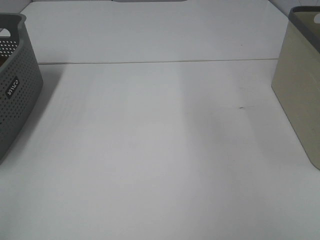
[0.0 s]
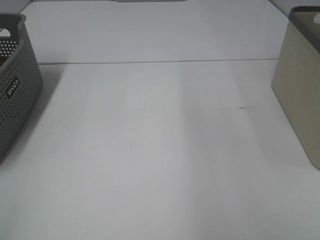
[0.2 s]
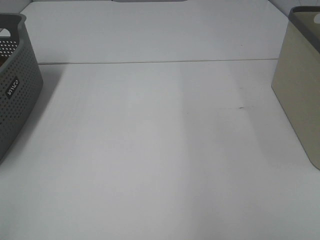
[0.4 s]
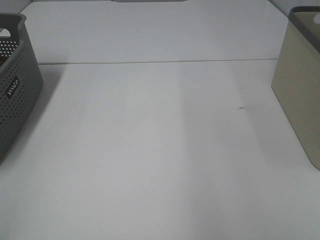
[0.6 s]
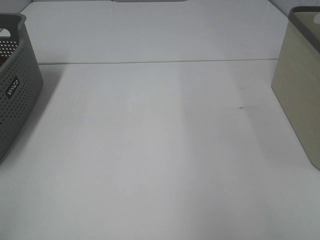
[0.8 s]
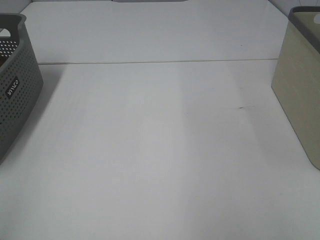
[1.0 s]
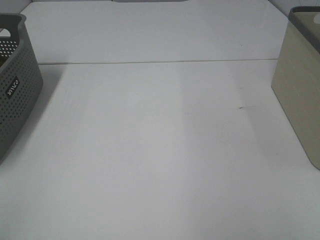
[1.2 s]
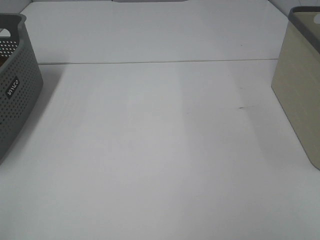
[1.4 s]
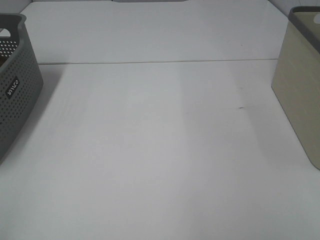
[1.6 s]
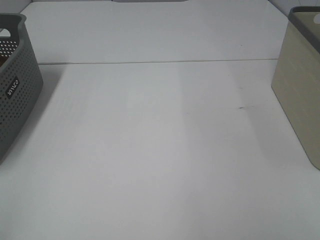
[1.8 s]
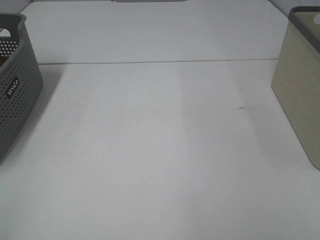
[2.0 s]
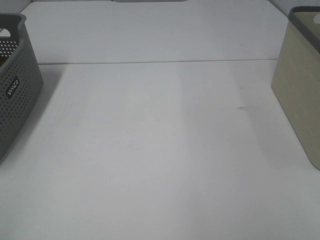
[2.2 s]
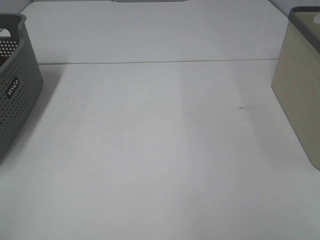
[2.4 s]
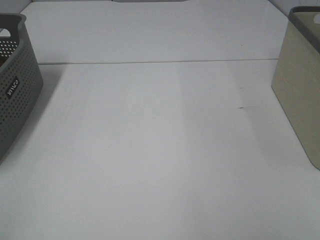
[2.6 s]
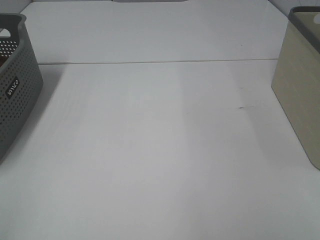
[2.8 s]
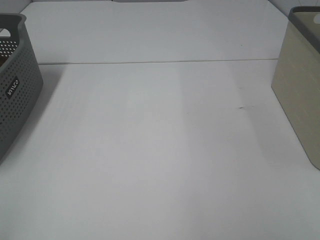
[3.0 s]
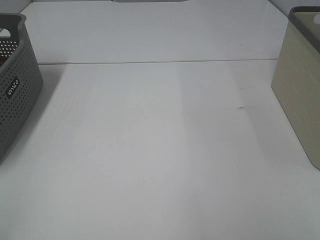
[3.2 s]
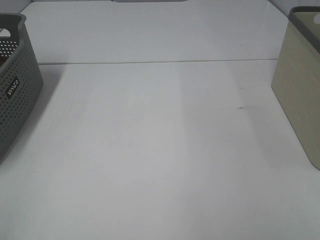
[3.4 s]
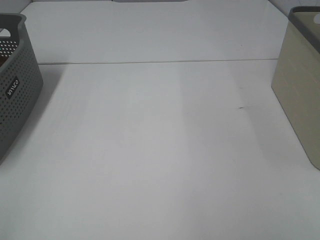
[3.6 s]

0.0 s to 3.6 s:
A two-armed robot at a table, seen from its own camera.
1.8 to 3.6 s: Both grippers stay put.

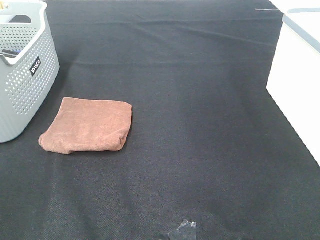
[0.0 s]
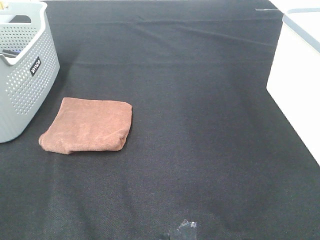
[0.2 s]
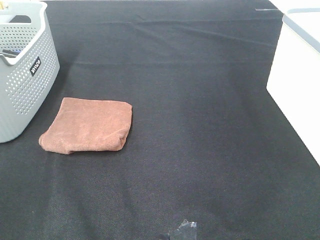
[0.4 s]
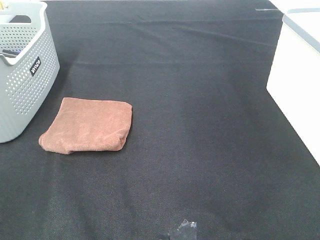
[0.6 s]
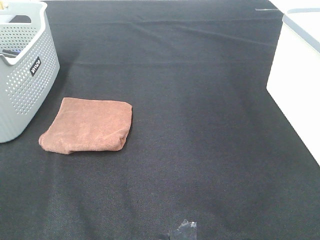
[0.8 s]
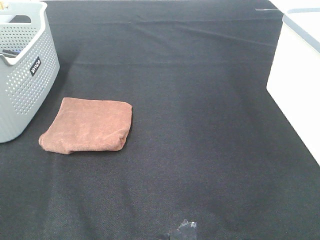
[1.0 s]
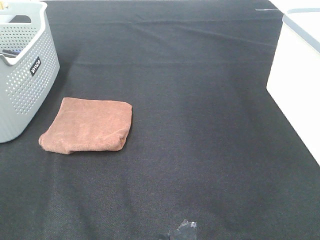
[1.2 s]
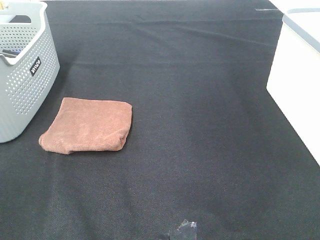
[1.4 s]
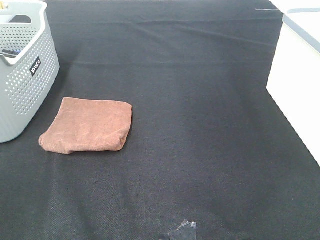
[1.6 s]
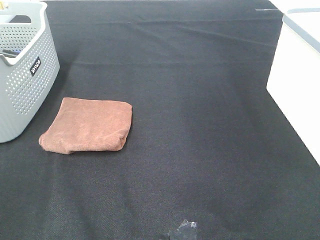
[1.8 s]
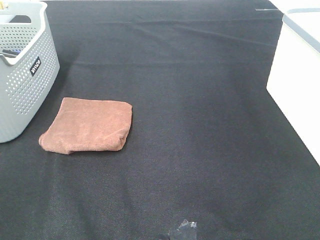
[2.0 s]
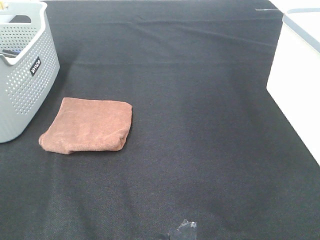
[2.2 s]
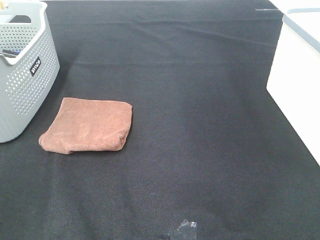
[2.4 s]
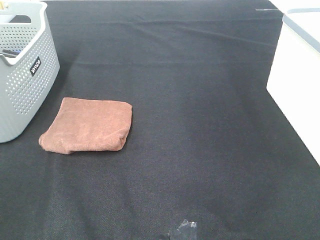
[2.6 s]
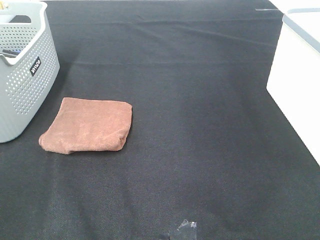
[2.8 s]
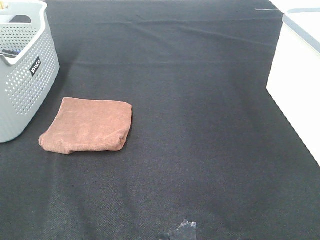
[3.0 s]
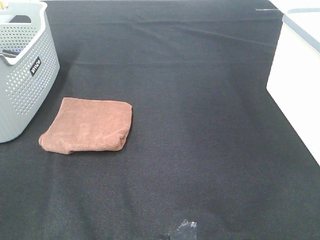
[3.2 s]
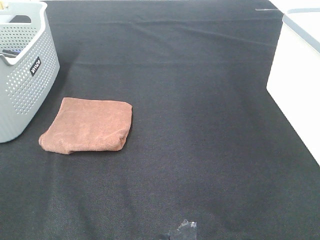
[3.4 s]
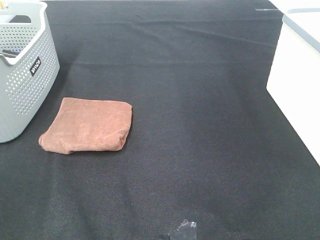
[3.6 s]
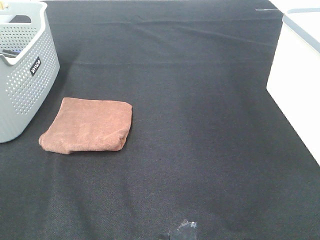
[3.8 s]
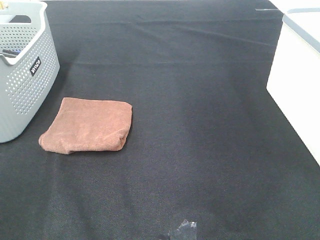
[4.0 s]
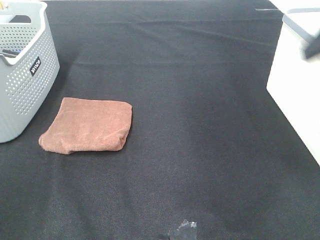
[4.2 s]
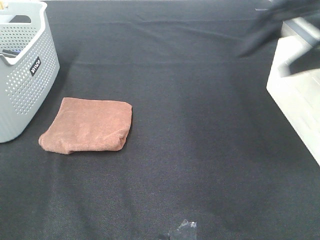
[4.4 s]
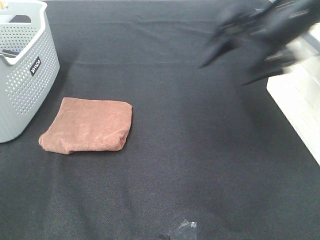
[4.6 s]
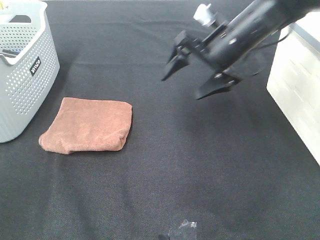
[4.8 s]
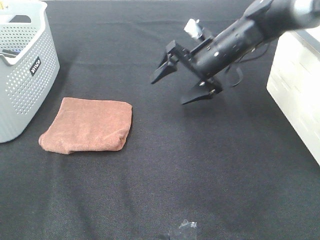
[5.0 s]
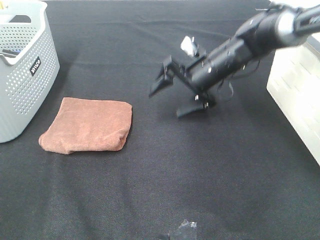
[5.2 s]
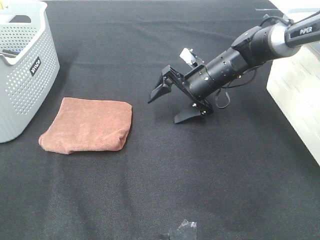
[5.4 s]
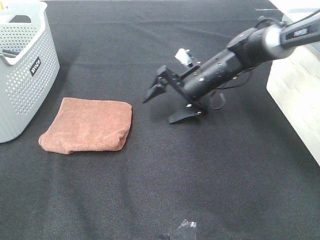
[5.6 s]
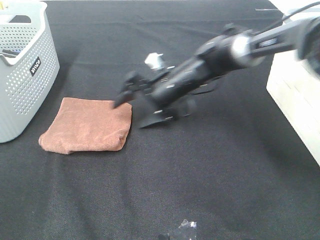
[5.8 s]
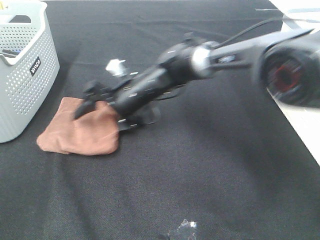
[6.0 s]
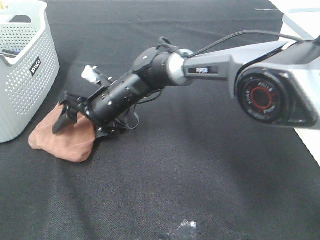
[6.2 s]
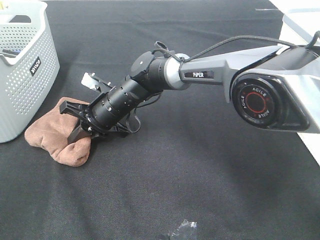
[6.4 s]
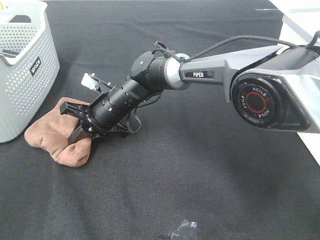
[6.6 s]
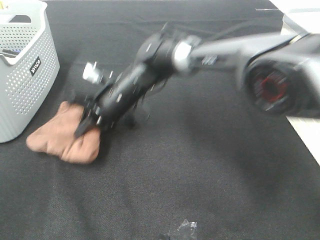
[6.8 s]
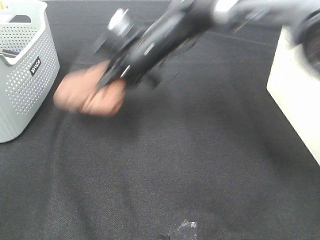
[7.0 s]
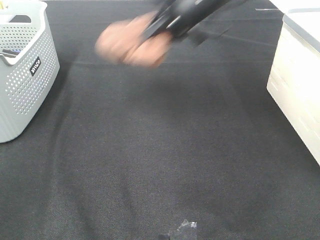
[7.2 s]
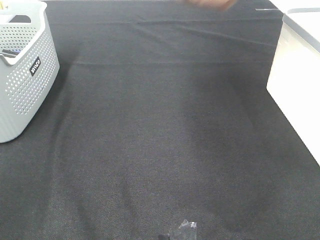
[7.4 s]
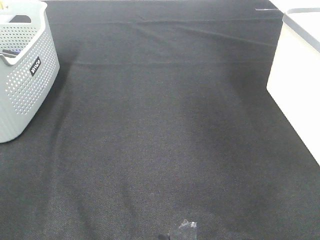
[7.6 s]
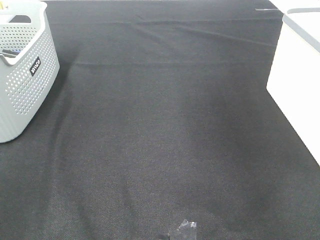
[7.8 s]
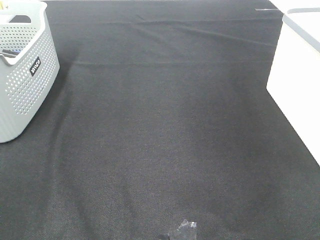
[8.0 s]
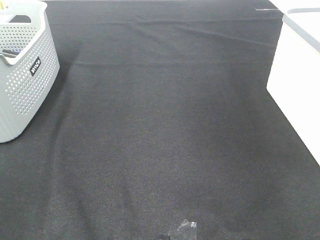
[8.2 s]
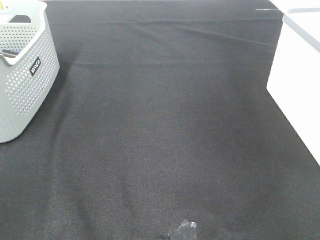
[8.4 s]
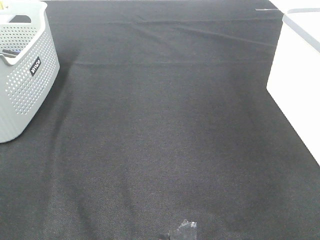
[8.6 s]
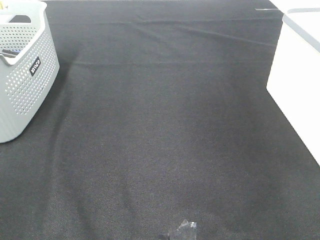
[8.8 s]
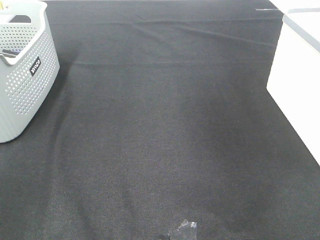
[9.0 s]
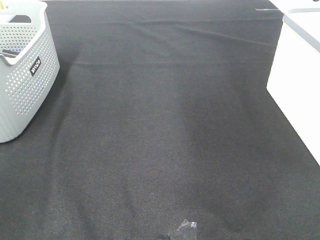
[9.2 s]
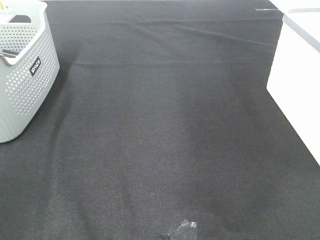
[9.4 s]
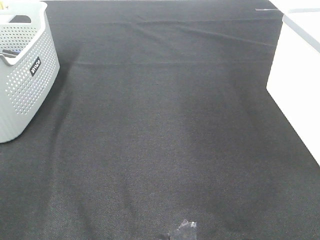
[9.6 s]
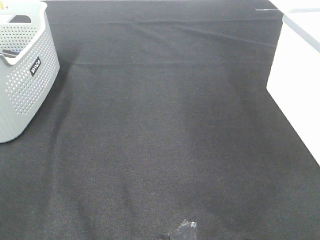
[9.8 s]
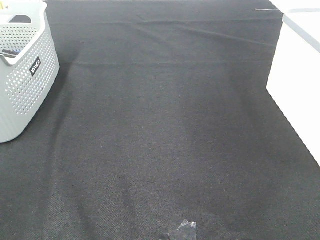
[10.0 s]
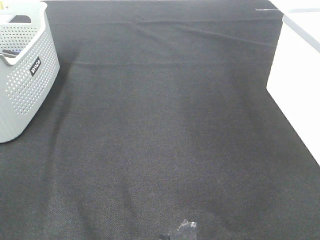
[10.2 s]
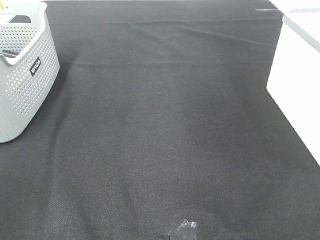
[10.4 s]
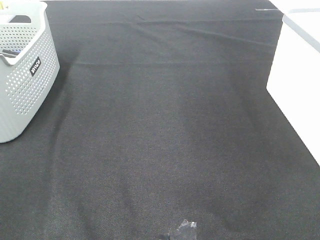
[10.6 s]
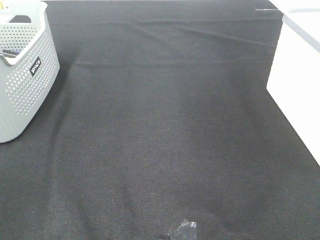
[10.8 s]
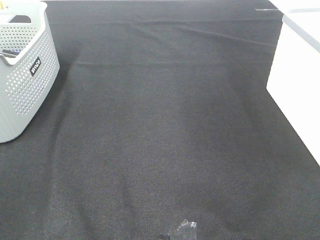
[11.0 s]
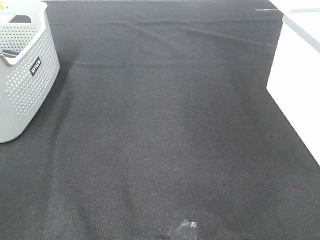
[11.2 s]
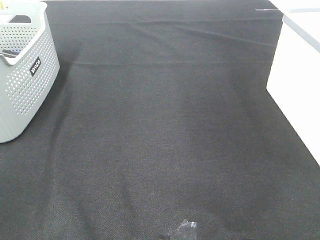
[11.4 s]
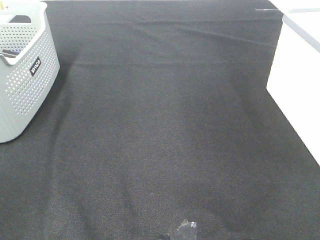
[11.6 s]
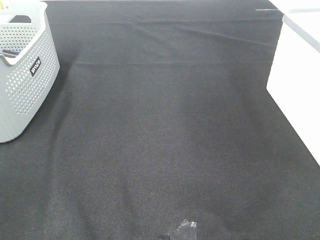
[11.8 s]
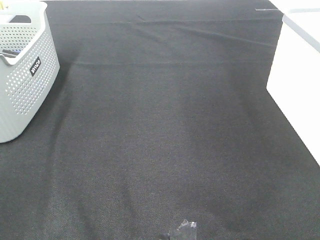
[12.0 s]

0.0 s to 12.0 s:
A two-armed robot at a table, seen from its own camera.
Step, 0.0 to 6.4 s: Right hand: grab the folded brown towel.
Step, 6.6 to 8.6 s: Right hand: place the brown towel in right basket.
0.0 to 3.0 s: Neither gripper changes place.
3.0 to 4.4 s: The right gripper moves forward, roughly 30 cm.
4.4 to 6.0 s: The right gripper shifts approximately 35 cm to the left and downward.
6.0 to 7.6 s: The right gripper is displaced upward and to the right by approximately 50 cm, and closes up.
